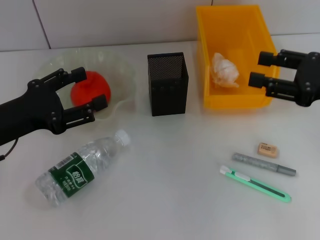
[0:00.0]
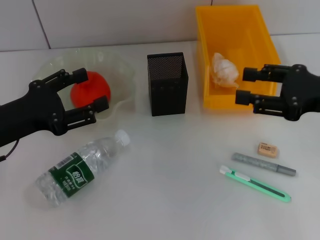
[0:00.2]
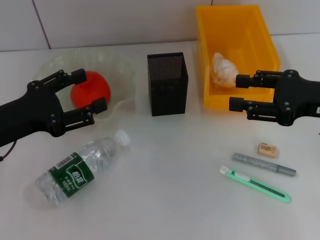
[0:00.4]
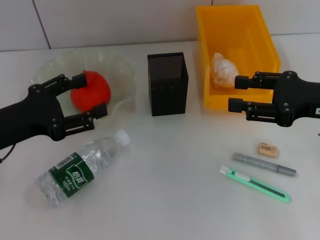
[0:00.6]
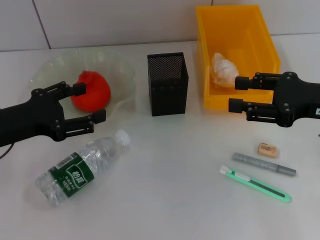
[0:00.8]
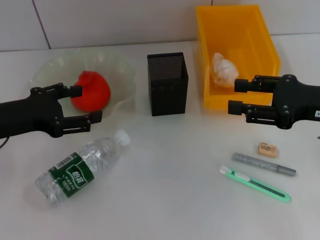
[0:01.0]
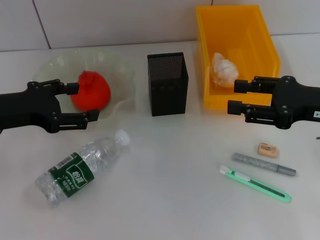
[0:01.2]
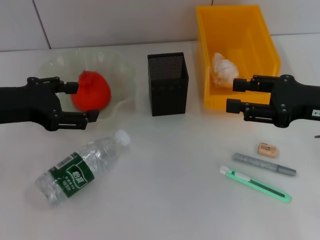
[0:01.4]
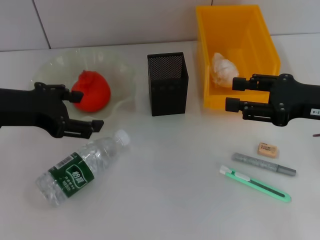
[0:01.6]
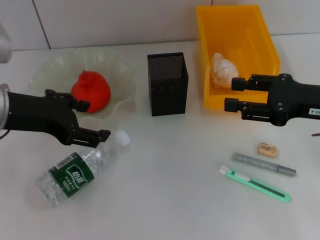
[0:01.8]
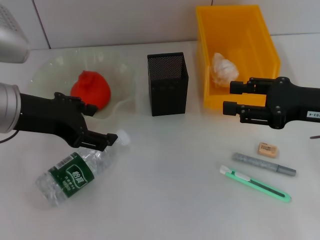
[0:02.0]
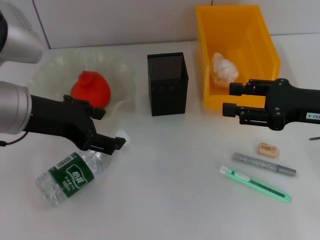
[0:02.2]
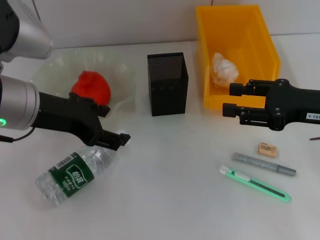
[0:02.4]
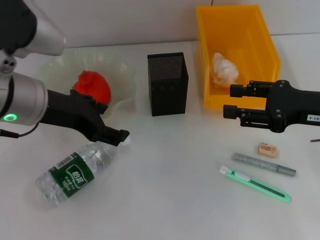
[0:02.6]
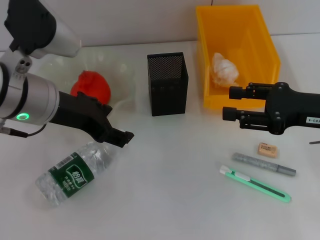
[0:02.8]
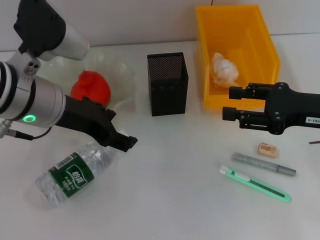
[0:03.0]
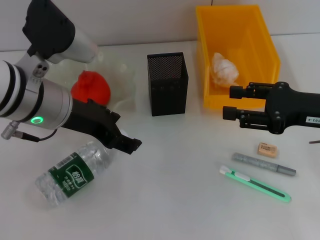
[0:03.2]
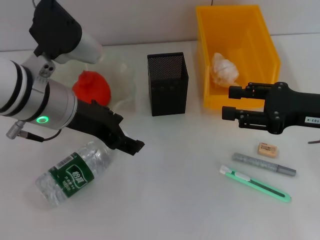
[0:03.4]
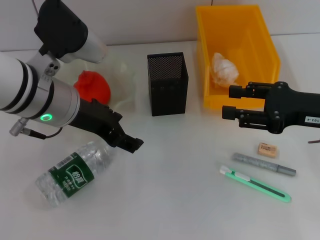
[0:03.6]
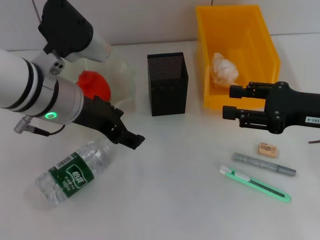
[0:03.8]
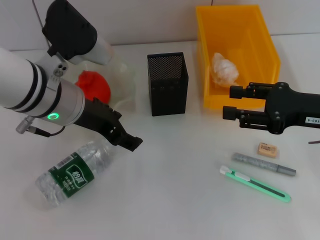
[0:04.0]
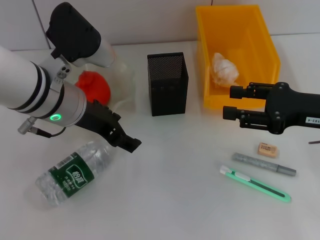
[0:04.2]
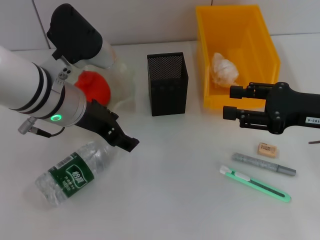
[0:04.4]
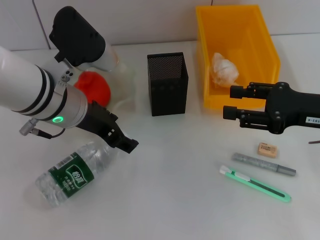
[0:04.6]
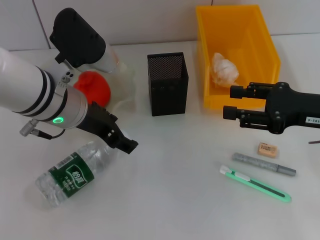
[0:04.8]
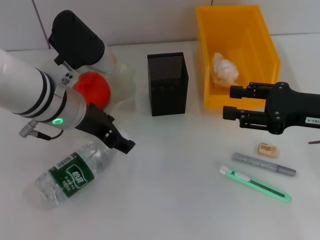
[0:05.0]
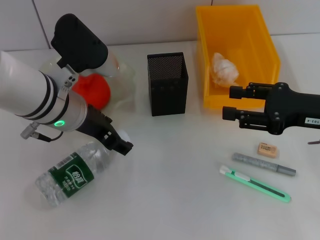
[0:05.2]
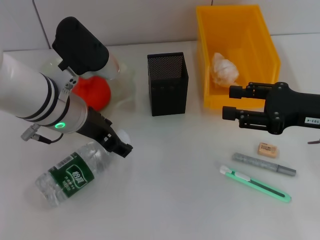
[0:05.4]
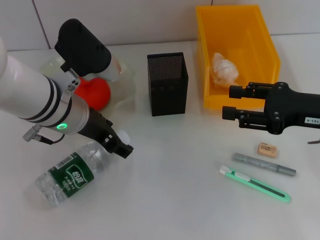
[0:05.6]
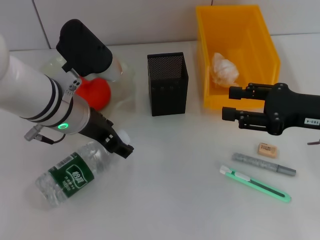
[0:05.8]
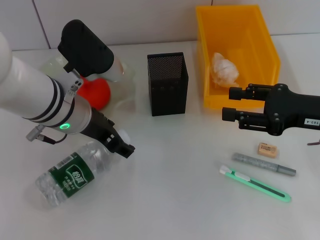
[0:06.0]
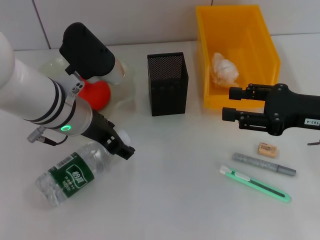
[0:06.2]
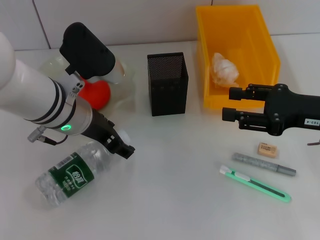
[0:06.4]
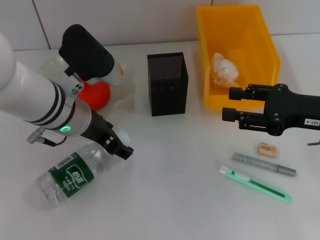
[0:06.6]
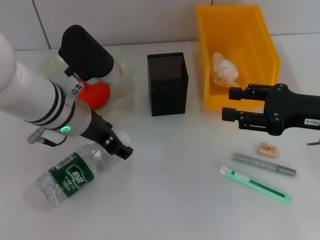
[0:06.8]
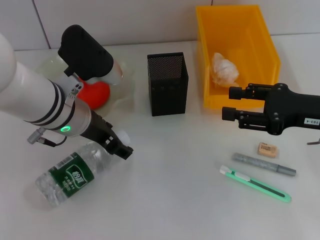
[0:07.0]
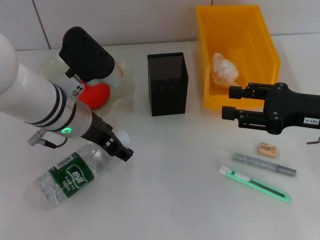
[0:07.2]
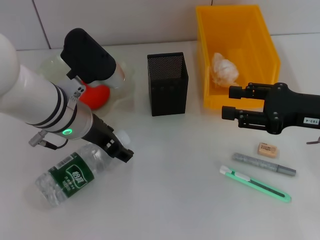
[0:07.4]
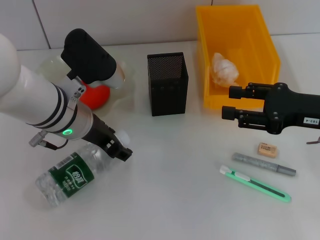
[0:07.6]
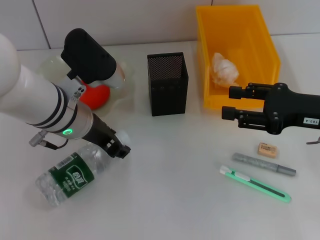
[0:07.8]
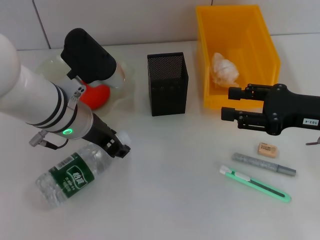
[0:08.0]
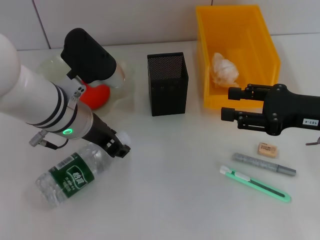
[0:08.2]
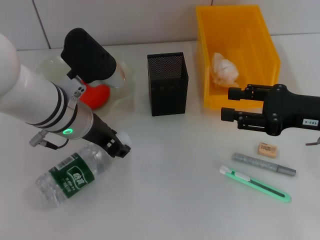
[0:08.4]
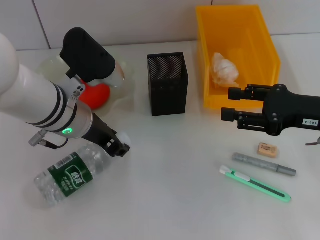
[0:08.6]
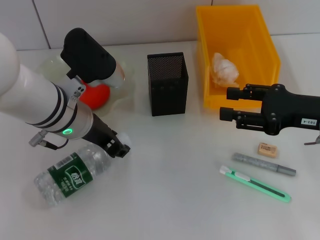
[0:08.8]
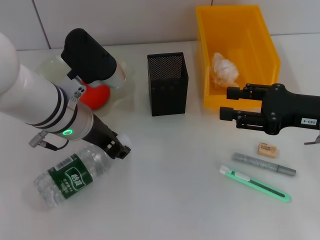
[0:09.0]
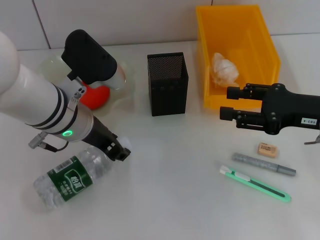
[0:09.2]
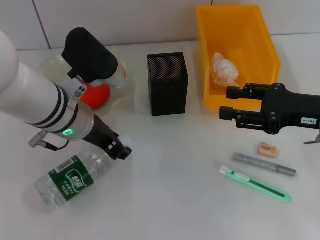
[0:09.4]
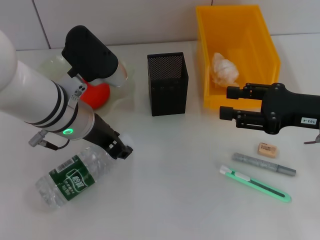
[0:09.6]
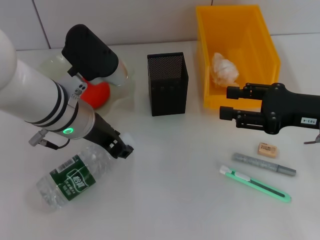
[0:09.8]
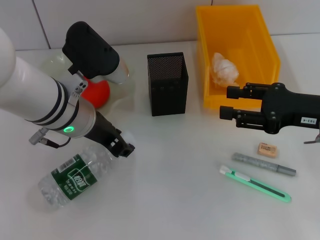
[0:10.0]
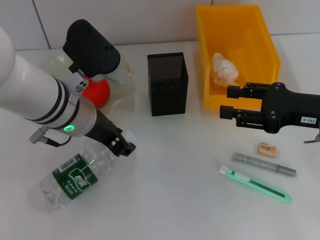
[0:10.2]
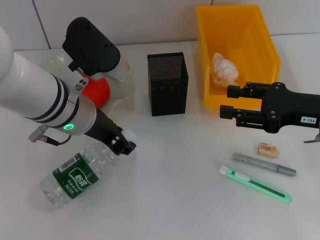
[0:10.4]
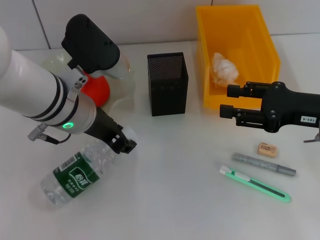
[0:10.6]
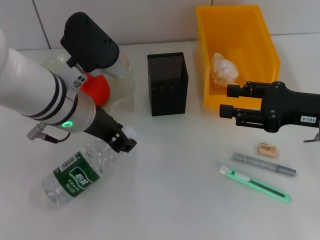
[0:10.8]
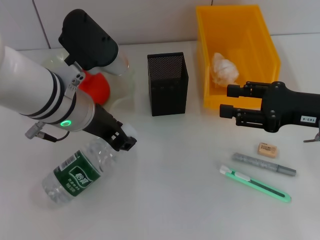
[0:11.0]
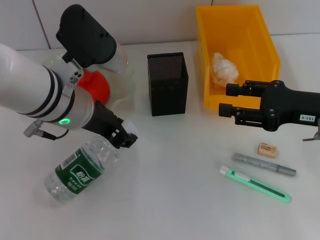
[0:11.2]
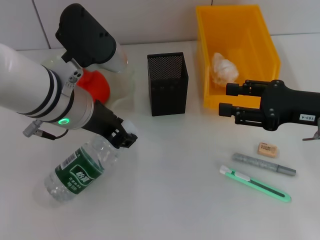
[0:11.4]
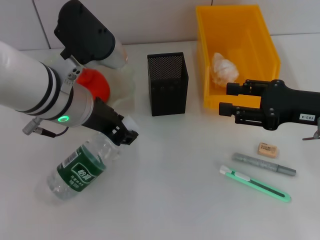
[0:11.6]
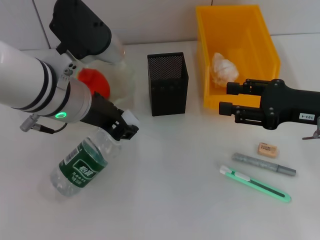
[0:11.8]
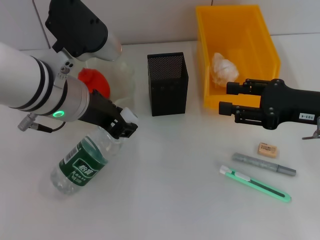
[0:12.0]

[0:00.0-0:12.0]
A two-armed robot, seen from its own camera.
Step, 0:00.0 to 0:09.4: Grab the water bottle with the left hand.
0:00.0 to 0:01.6: The left gripper moves upward, approximately 5 cm.
0:01.6 to 0:03.0: The left gripper moves to the right, approximately 10 cm.
0:03.0 to 0:06.0: The grippers move only a little.
0:06.0 to 0:07.6: Both grippers stay put.
0:07.6 to 0:09.0: The left gripper closes.
0:09.0 to 0:12.0: The grippers move only a little.

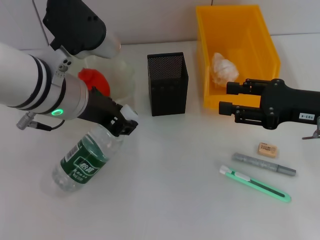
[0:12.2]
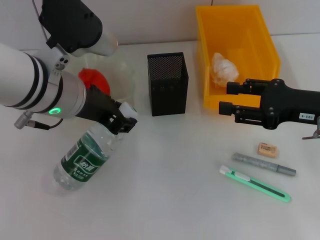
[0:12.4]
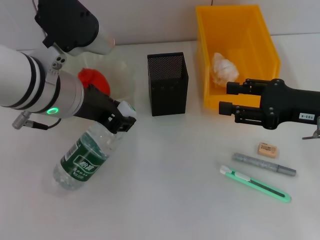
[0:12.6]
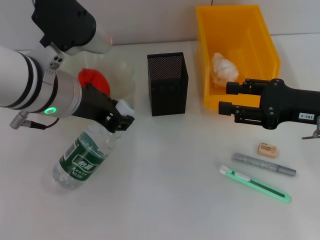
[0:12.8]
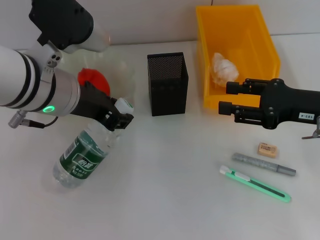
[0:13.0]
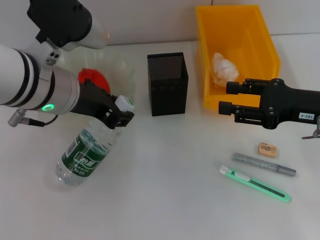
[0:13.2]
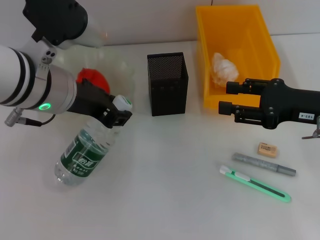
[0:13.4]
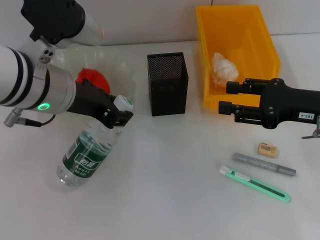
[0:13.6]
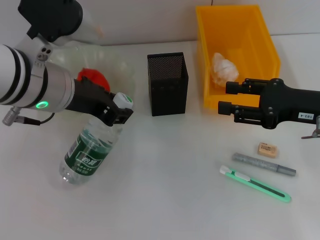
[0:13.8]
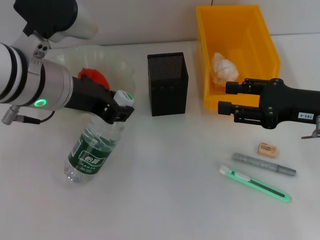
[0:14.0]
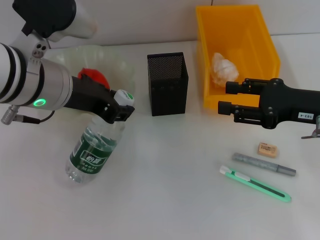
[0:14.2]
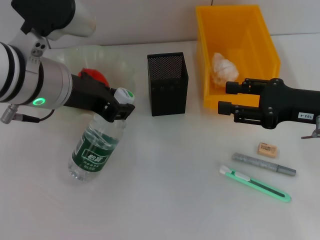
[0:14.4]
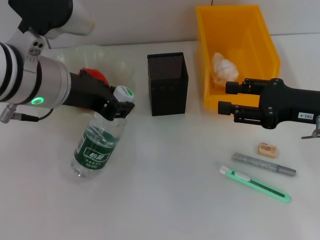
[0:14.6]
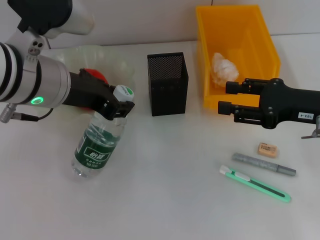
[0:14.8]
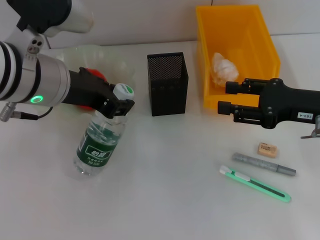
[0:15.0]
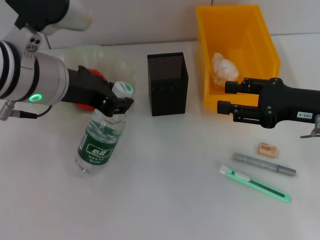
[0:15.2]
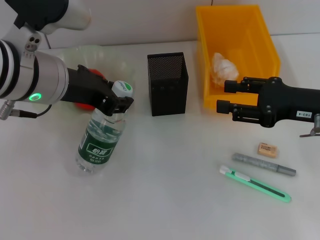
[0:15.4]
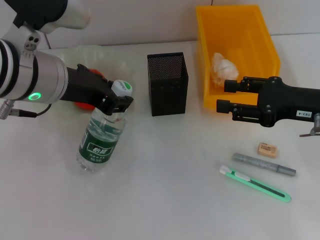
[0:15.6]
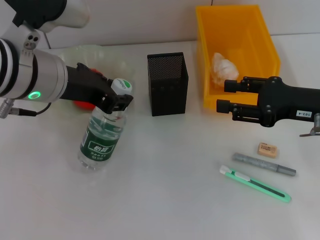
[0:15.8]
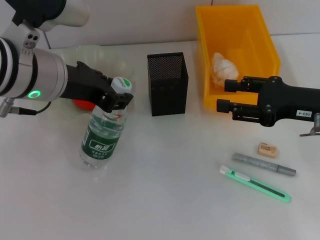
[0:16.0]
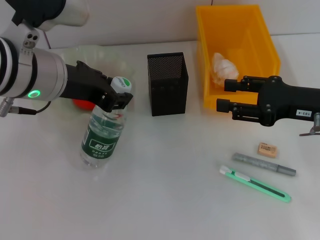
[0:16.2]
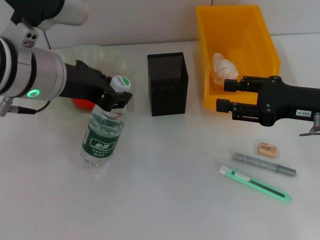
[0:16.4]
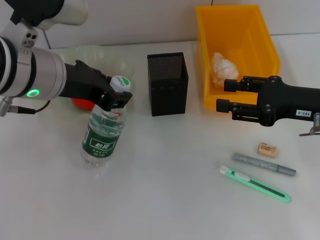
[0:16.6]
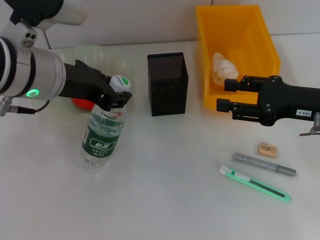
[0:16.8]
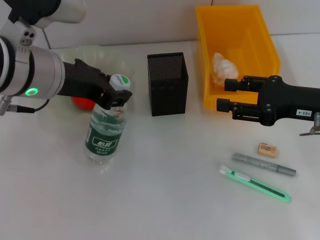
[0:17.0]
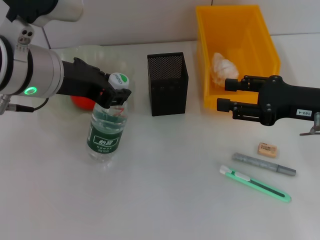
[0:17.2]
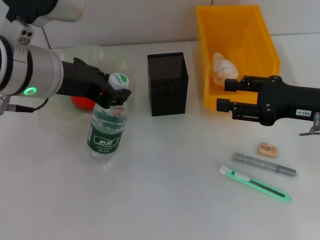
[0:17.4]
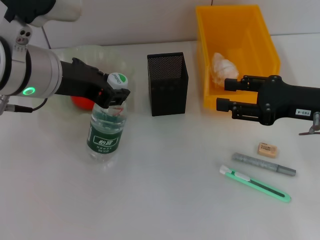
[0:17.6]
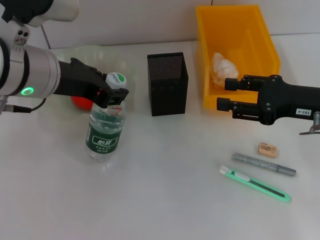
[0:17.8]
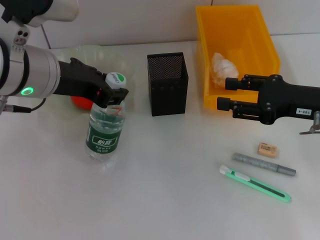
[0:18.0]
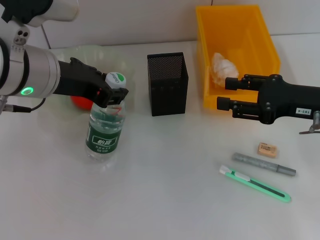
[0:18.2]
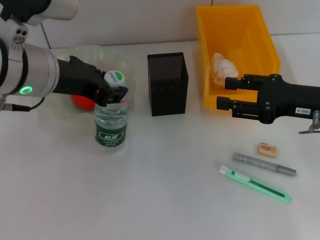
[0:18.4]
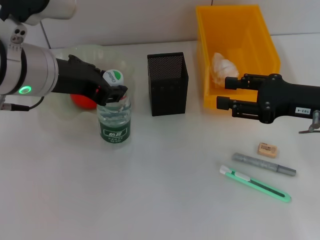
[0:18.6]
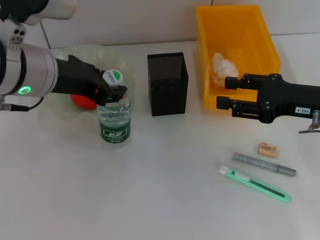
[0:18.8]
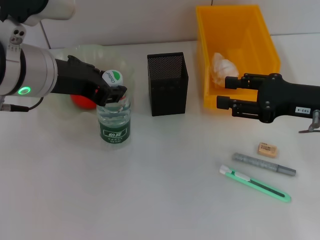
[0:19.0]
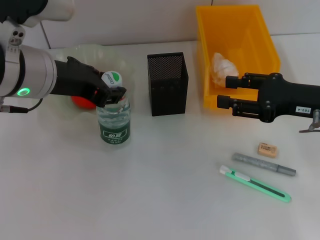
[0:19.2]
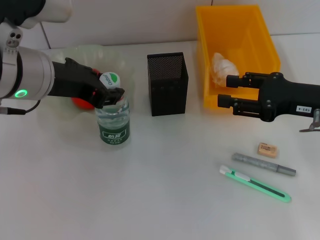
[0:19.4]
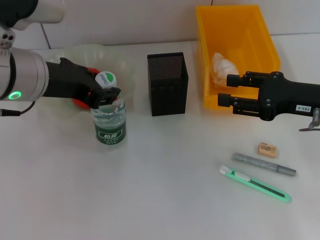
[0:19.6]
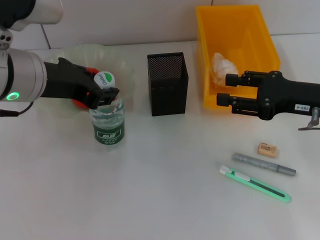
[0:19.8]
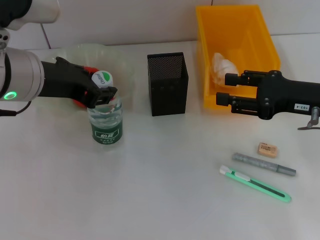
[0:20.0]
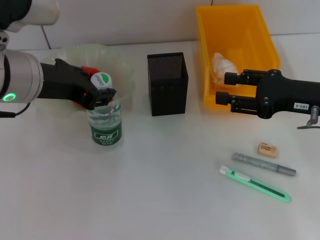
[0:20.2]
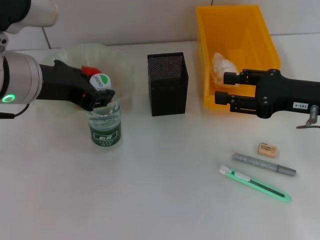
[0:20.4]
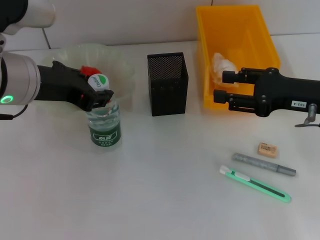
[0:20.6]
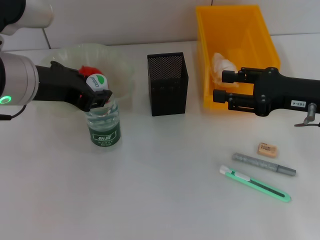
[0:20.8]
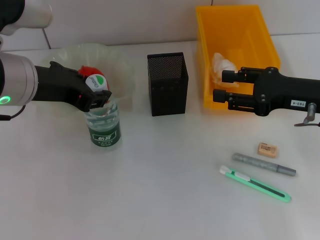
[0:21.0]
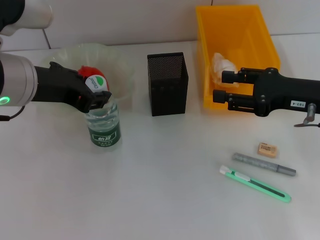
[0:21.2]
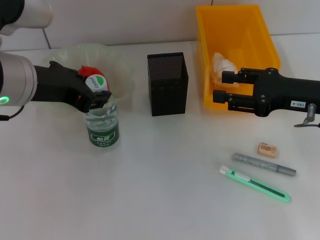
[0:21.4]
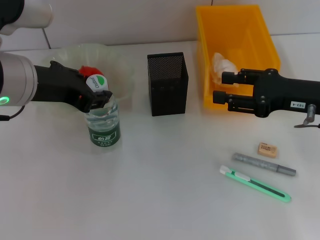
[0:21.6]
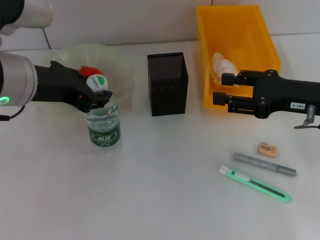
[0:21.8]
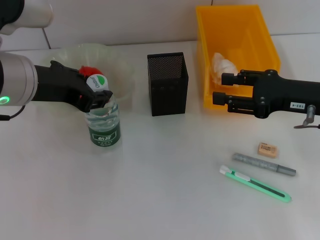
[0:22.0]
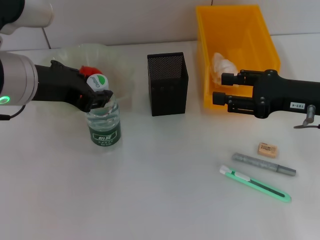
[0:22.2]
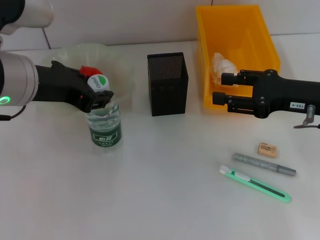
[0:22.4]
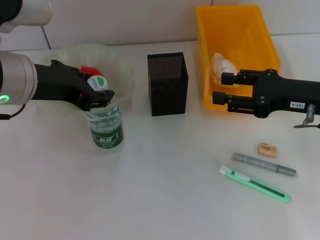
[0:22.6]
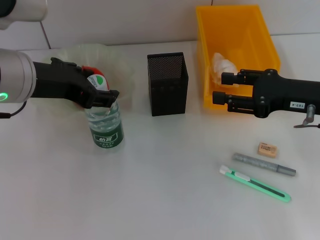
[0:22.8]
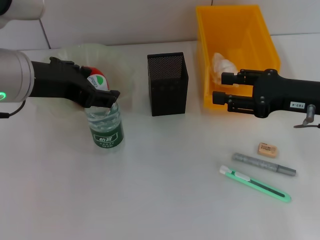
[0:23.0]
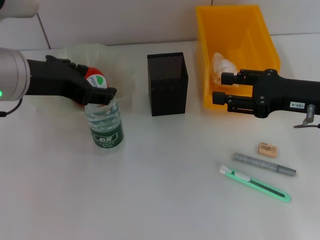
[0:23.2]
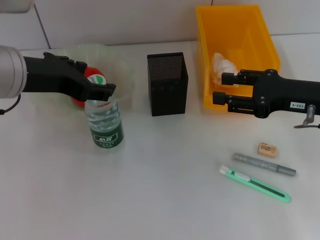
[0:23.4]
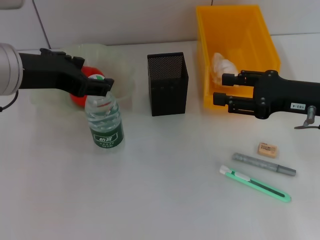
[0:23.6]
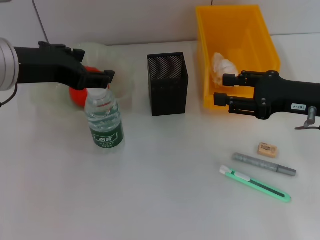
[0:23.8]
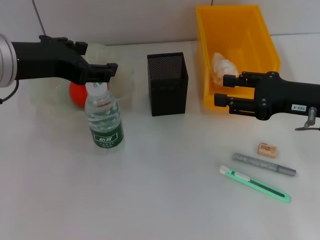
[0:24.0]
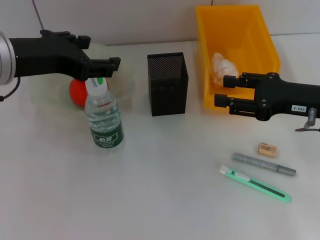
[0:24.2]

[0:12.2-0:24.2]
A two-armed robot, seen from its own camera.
Step, 0:12.2 to 0:23.0: Place the water bottle on the table with the left hand.
0:12.2 to 0:13.8: There are only small adjustments of the grippers.
0:13.8 to 0:15.2: Both grippers stay about where they are.
0:15.2 to 0:18.2: The two grippers keep their place.
0:18.2 to 0:19.8: The grippers stay close to where they were, moving slightly.
0:19.8 to 0:22.6: Both grippers stay put.
0:22.6 to 0:24.2: The left gripper opens its fingers.
